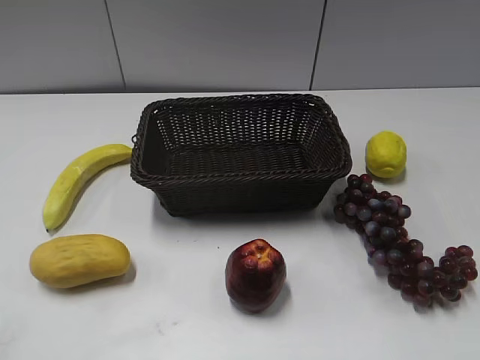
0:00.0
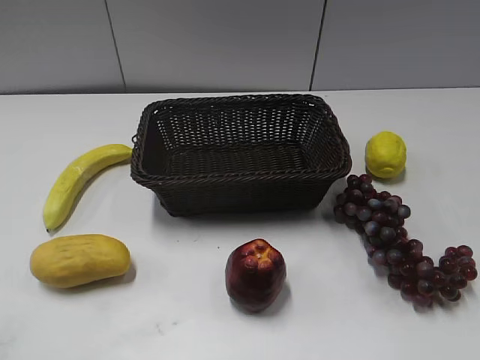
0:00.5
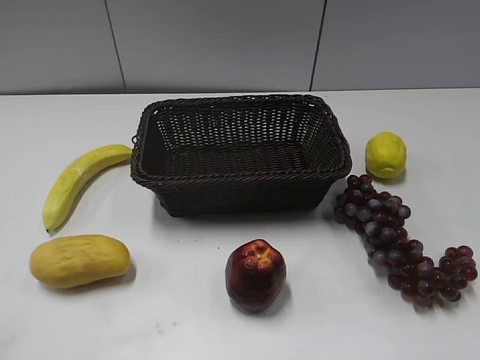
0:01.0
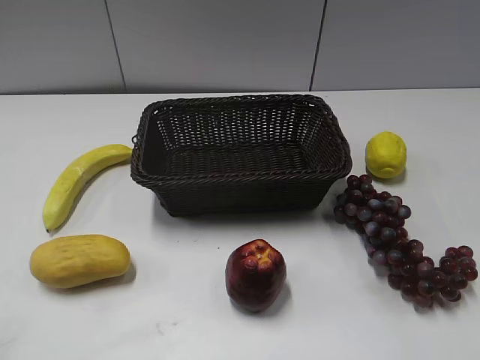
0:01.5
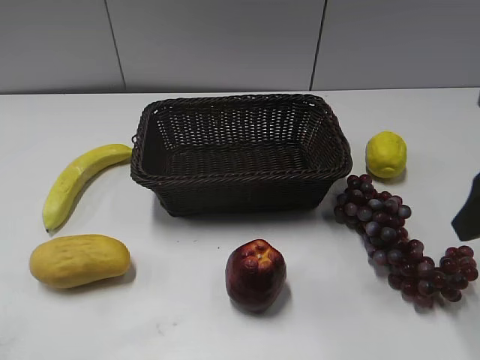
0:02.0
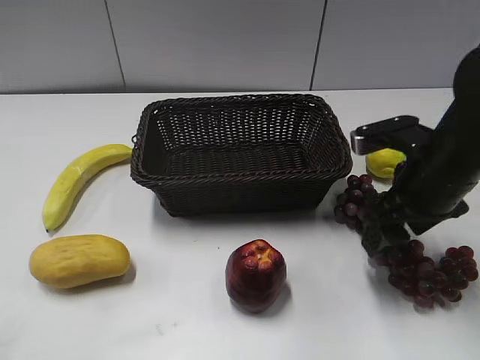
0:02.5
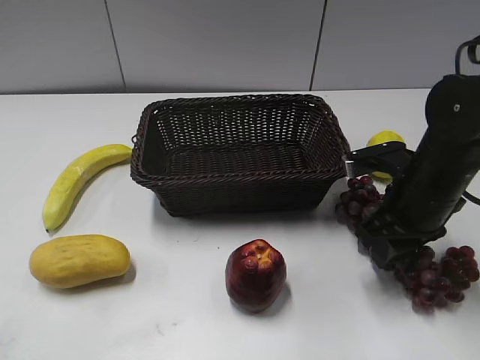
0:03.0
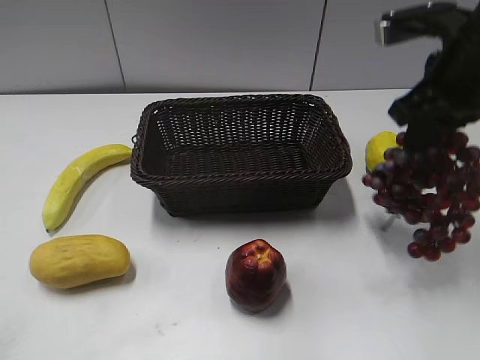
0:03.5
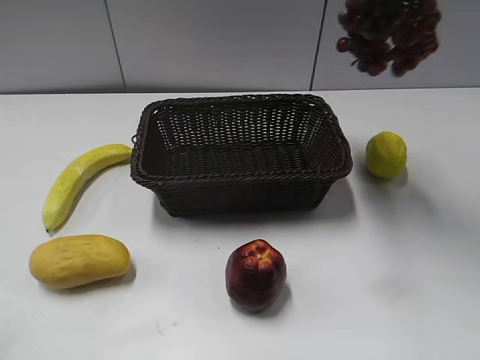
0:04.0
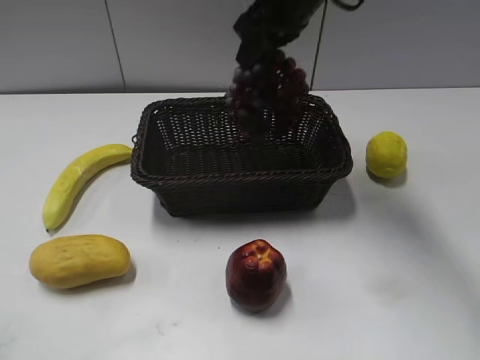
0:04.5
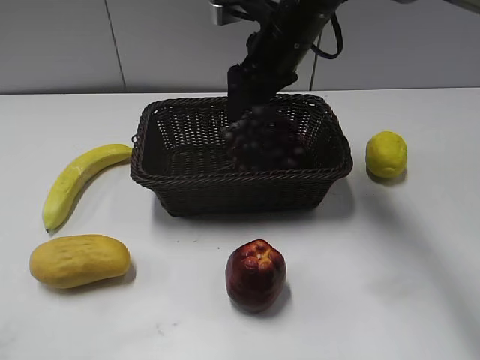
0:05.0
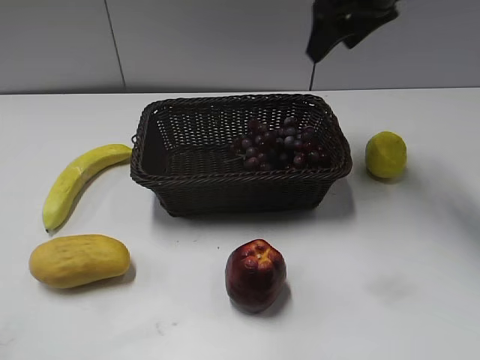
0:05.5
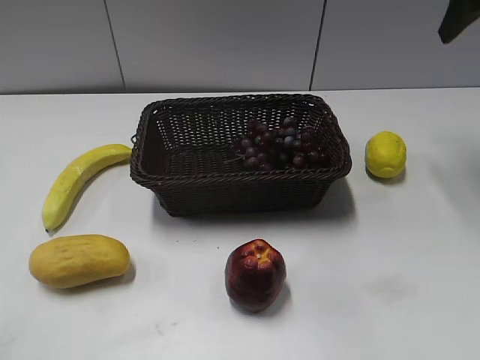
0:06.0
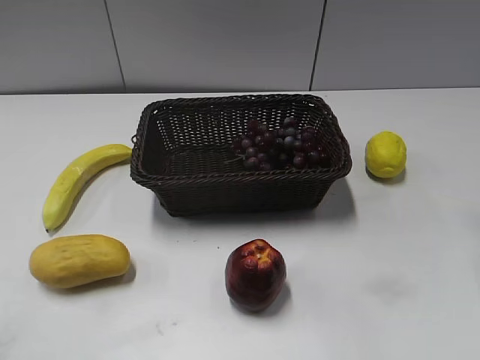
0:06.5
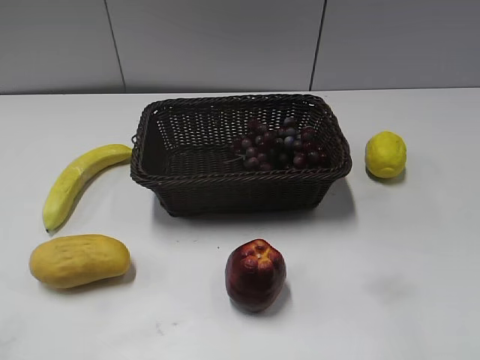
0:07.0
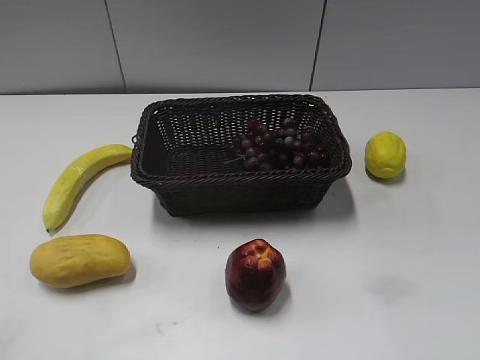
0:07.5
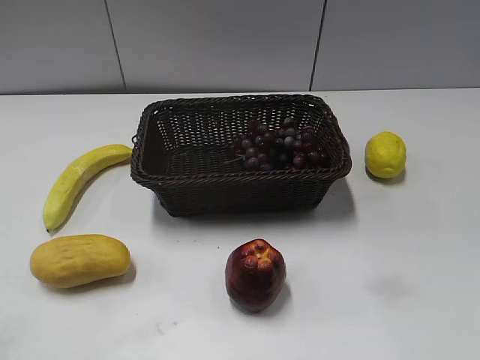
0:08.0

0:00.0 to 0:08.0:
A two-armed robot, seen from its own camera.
Step, 0:02.0 to 0:03.0: Grasp the grape with right gripper.
Step, 0:03.5 to 0:04.5: Place the grape in the basket with right gripper.
0:02.0 to 0:04.0: The right gripper shifts some 25 cm upward, forward and to the left, and closes.
0:04.0 to 0:06.0: The right gripper is displaced to the right and downward by about 15 cm, and opens its fingers.
0:06.0 to 0:08.0: The right gripper moves backward, roughly 40 cm.

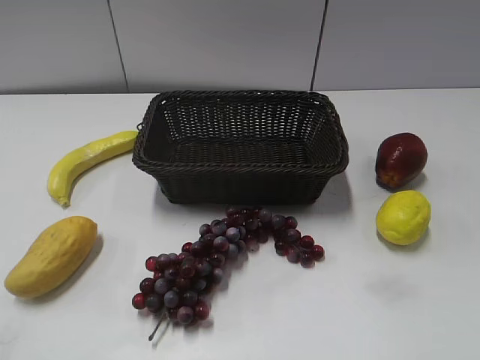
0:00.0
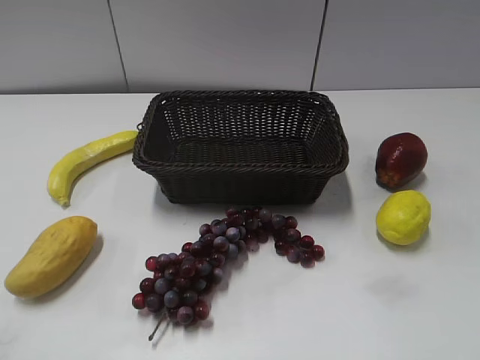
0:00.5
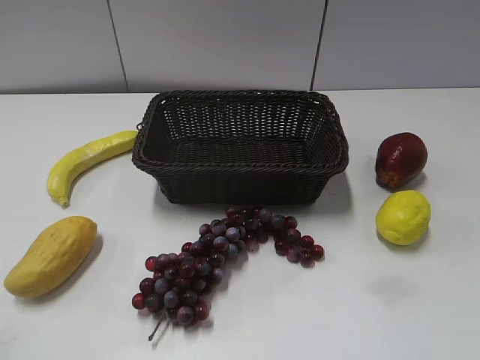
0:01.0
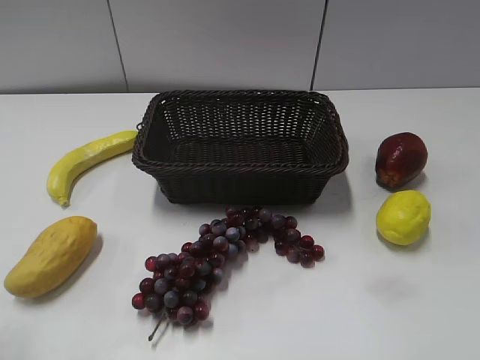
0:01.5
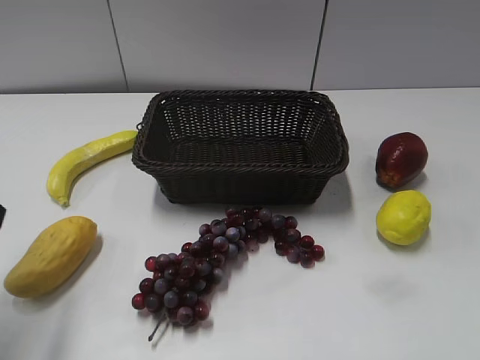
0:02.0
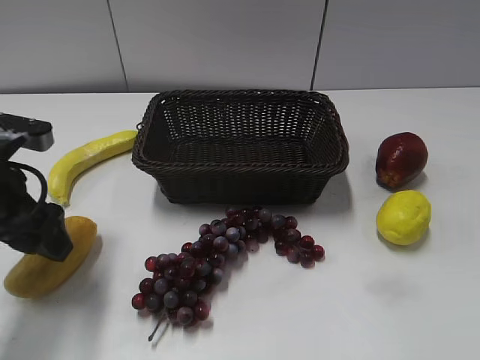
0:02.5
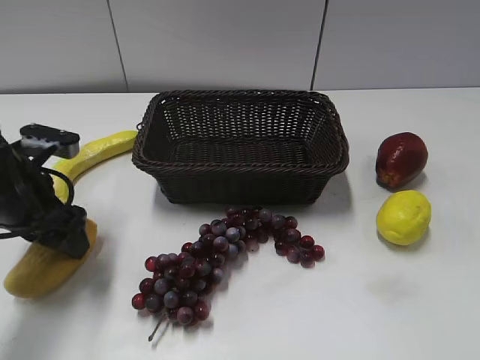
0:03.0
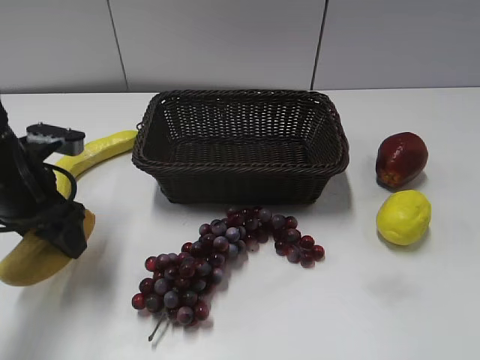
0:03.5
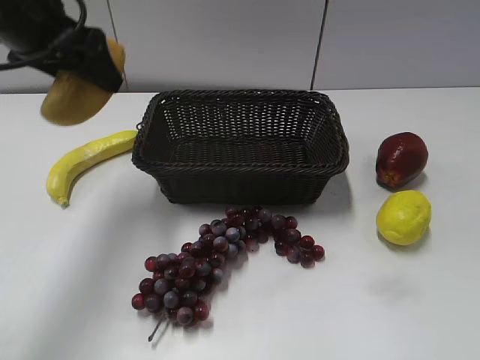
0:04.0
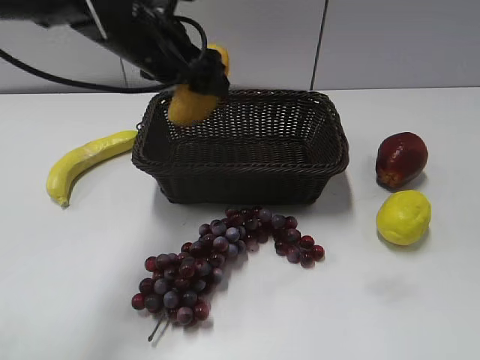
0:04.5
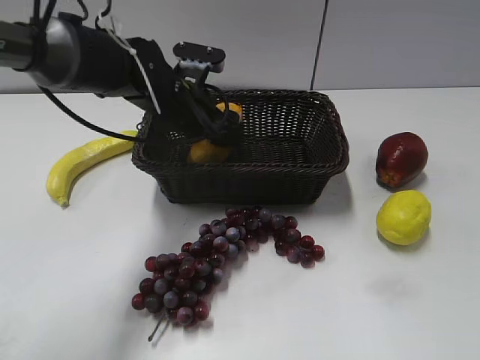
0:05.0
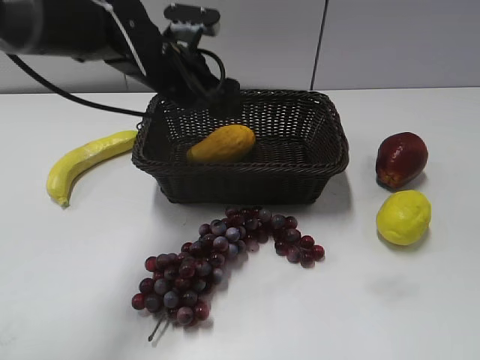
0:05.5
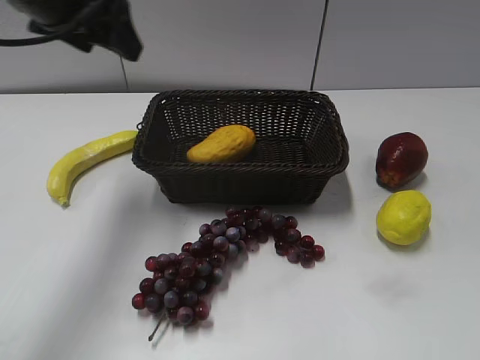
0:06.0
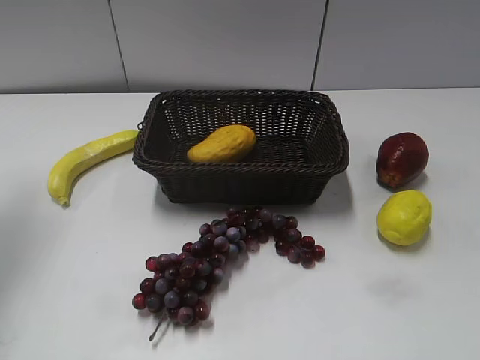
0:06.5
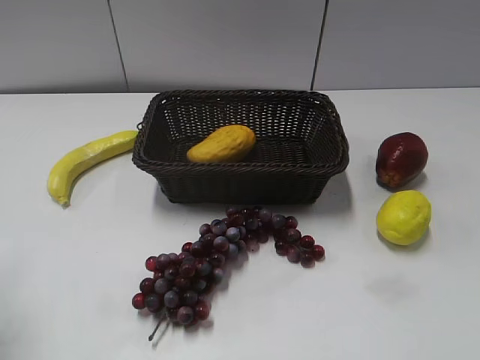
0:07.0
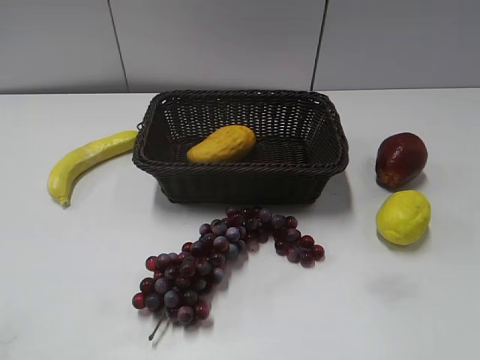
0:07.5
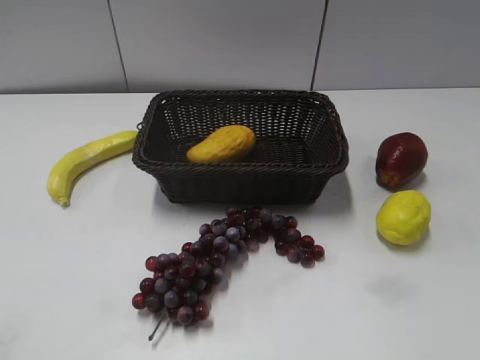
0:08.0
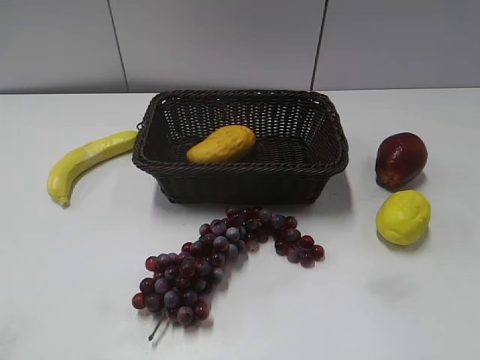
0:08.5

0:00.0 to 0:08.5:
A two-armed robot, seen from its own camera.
Step, 0:02.0 to 0:03.0: Grasp the mango with left gripper.
Step, 0:03.5 to 0:05.0: Place the mango in the basket with left gripper.
0:02.0 to 0:04.0: The left gripper travels forward, to the right and upward by about 20 cm, and closes its fingers.
0:04.0 to 0:06.5: The left gripper is displaced to the left by about 15 cm, and opens and closes again.
0:06.5 to 0:08.5: The left gripper moves backward, about 30 cm.

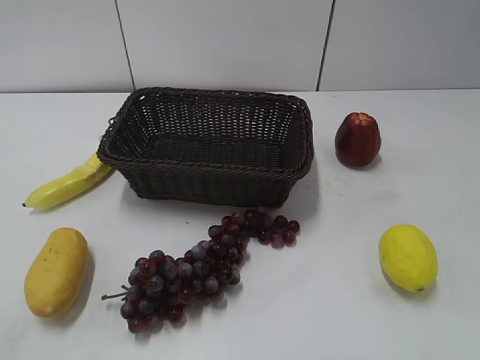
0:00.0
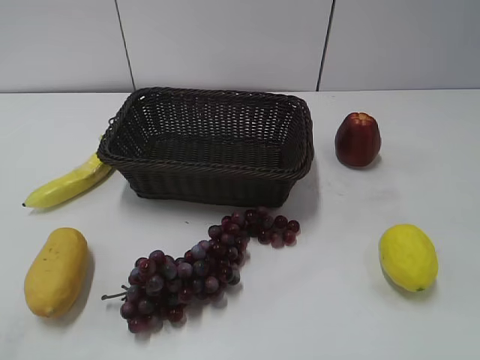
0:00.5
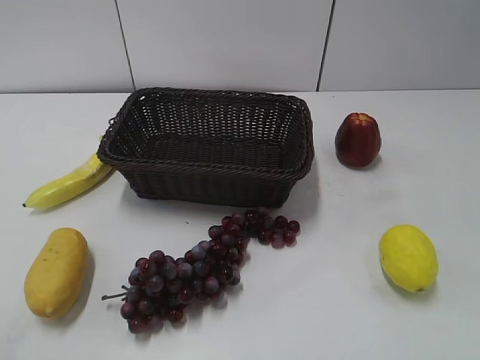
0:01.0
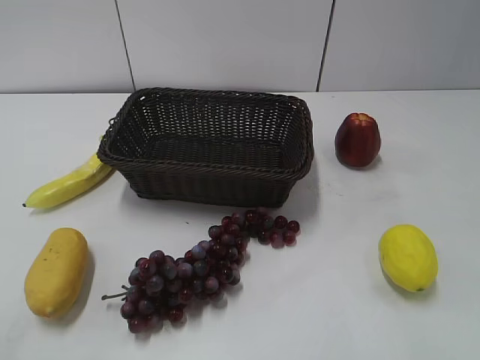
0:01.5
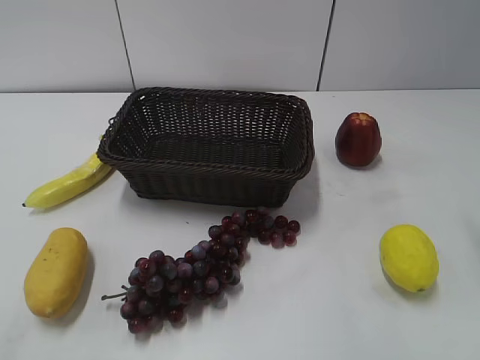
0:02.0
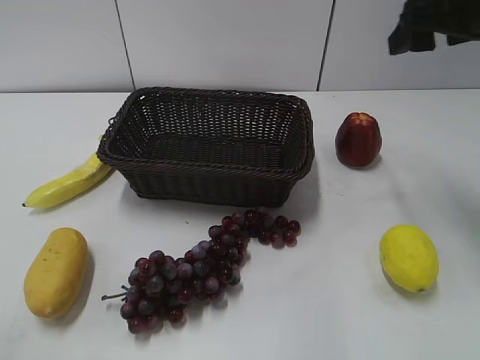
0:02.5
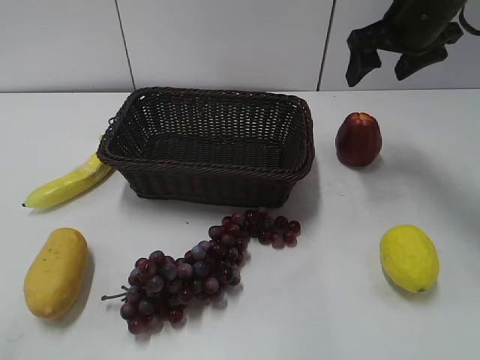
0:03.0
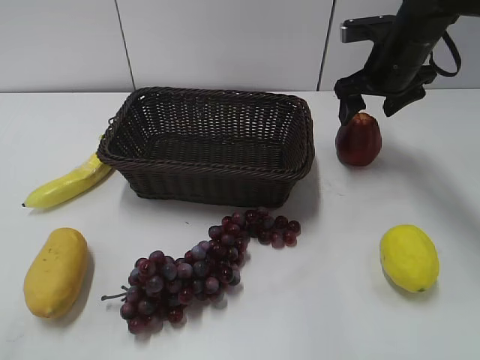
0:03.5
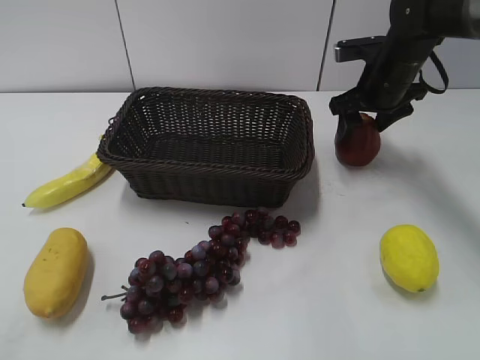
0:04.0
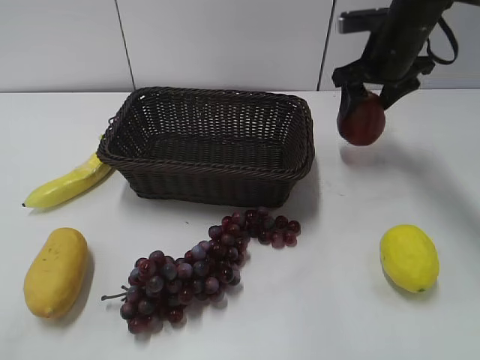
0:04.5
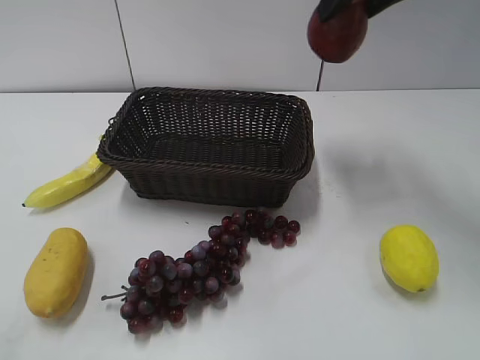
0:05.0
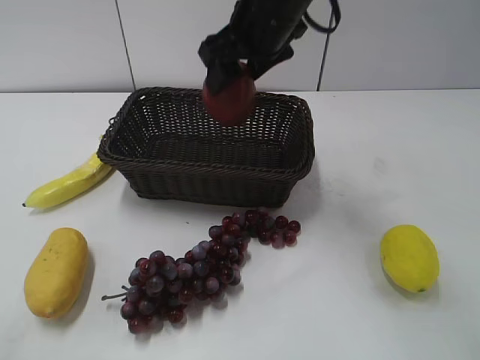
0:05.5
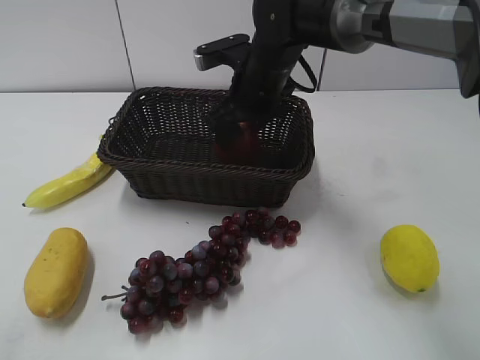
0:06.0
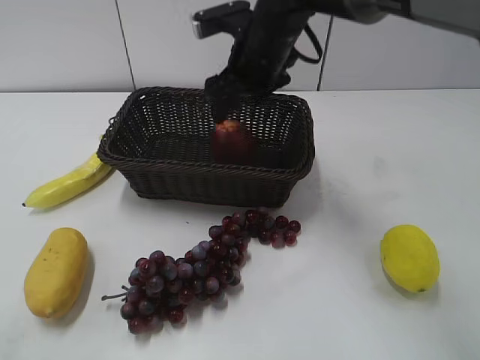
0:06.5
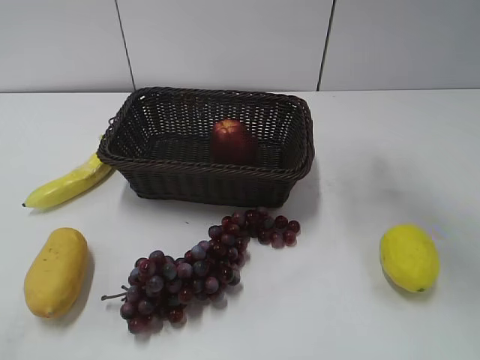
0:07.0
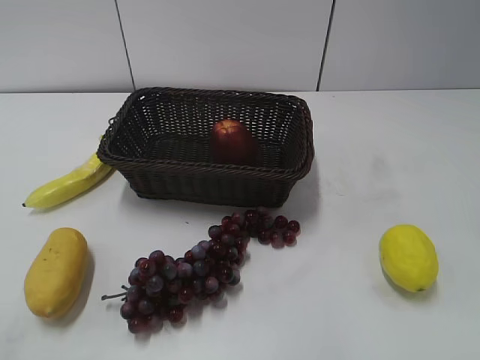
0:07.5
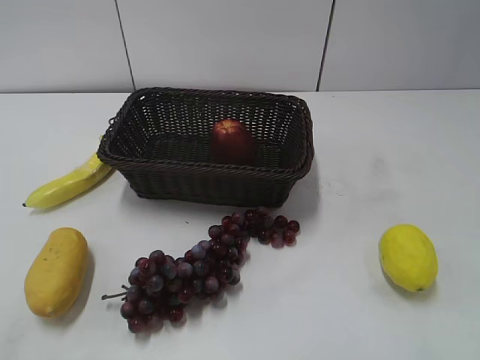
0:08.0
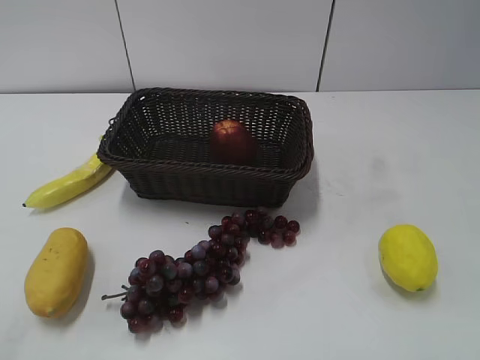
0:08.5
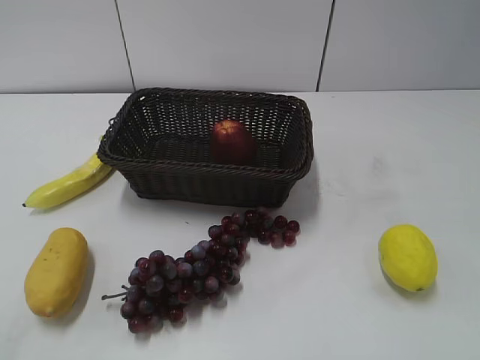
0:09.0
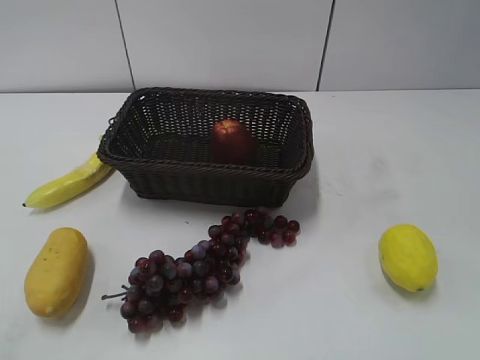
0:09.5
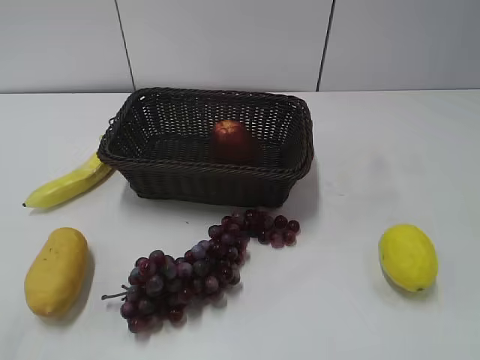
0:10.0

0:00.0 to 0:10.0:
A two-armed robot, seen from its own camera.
Step, 0:02.5 to 0:04.0: Grasp the apple with right gripper.
Step, 0:04.5 to 0:06.0: Place the apple in the basket with right gripper.
0:02.0 to 0:04.0: The right gripper heads forward and downward, covering about 30 cm, and closes up.
0:04.0 to 0:06.0: The right gripper travels to the left by some 20 cm, and goes upward and returns, some 20 cm each way.
0:06.0 to 0:08.0: The right gripper shifts some 50 cm backward, to the right and upward, and opens its fingers.
